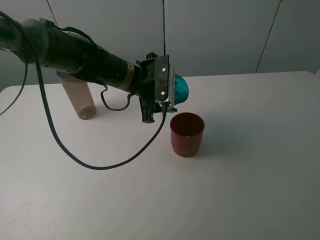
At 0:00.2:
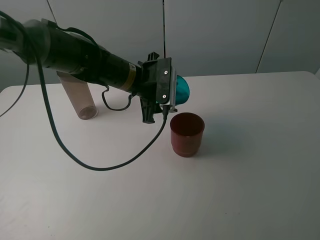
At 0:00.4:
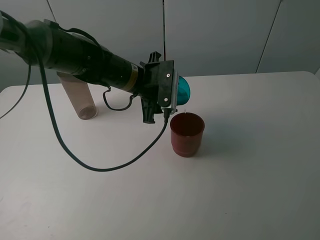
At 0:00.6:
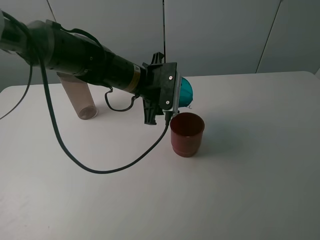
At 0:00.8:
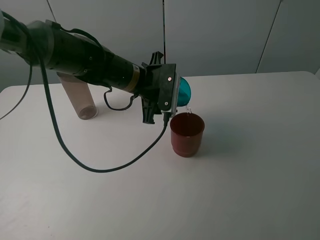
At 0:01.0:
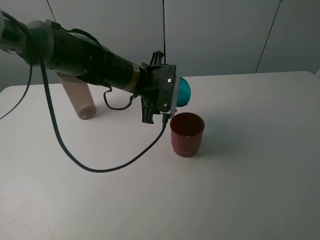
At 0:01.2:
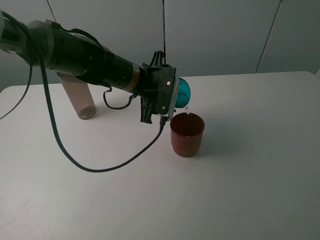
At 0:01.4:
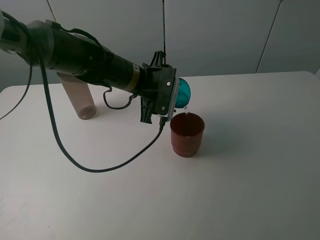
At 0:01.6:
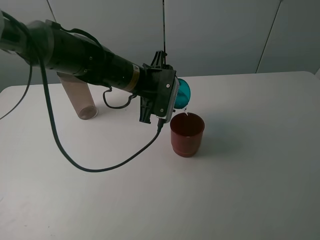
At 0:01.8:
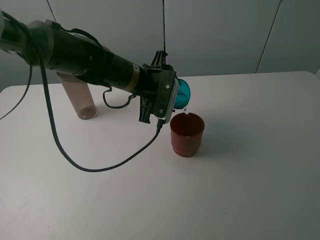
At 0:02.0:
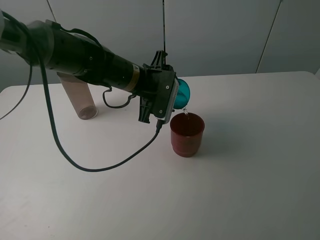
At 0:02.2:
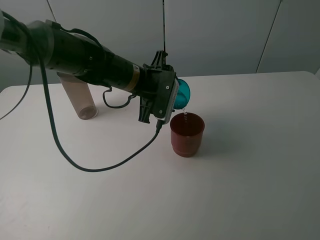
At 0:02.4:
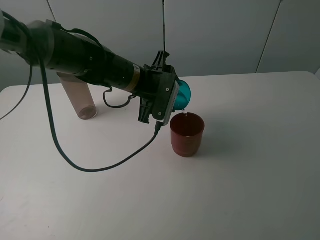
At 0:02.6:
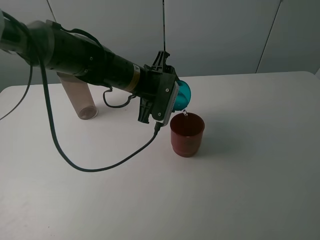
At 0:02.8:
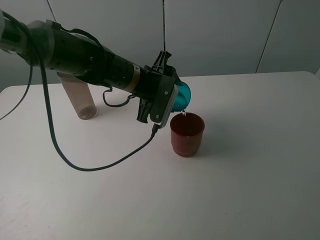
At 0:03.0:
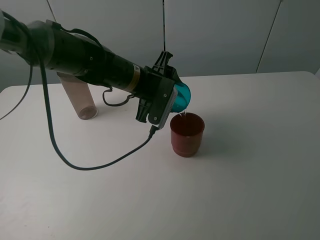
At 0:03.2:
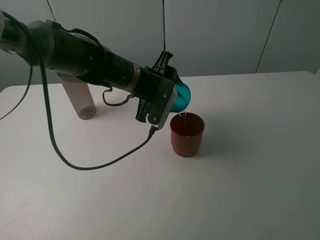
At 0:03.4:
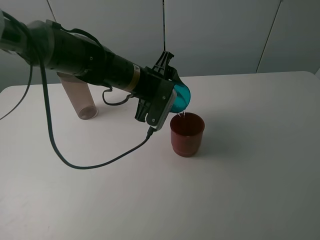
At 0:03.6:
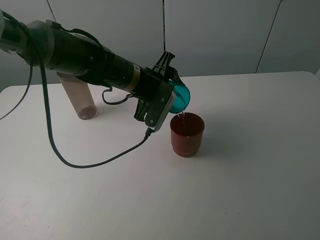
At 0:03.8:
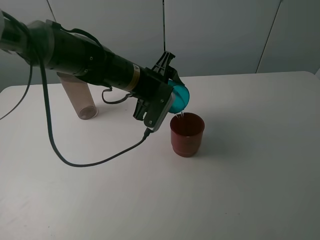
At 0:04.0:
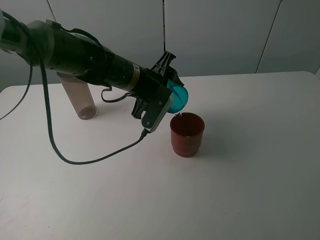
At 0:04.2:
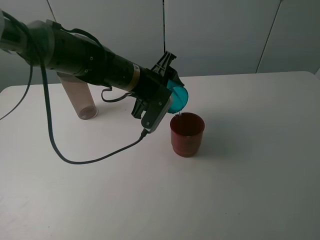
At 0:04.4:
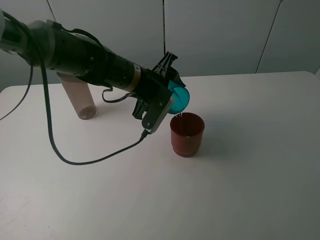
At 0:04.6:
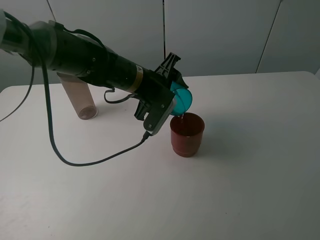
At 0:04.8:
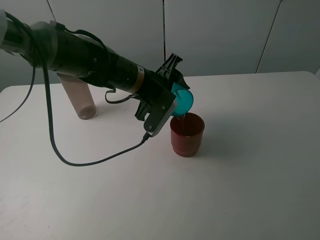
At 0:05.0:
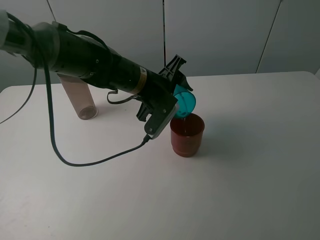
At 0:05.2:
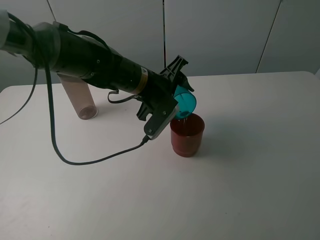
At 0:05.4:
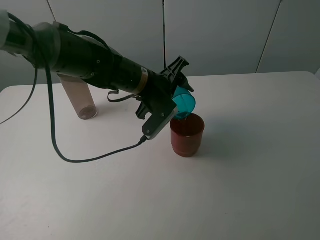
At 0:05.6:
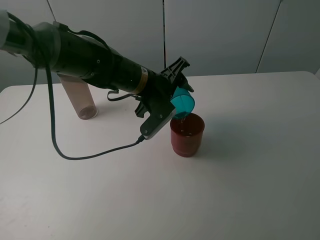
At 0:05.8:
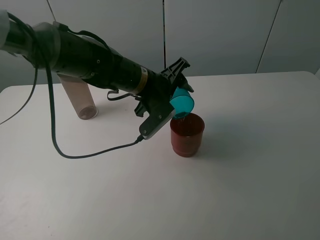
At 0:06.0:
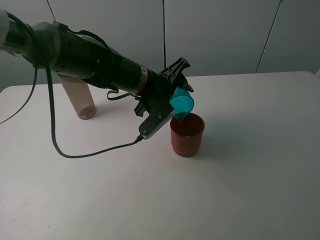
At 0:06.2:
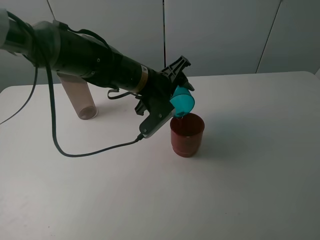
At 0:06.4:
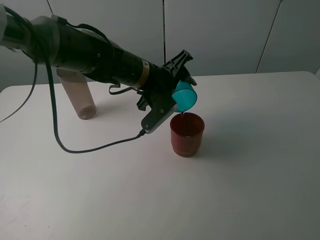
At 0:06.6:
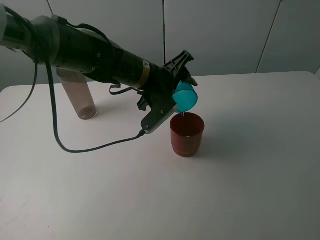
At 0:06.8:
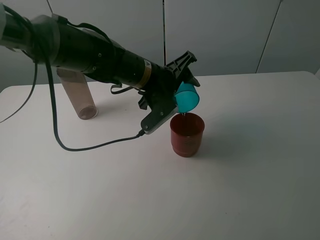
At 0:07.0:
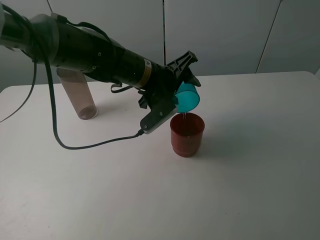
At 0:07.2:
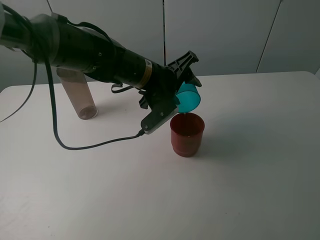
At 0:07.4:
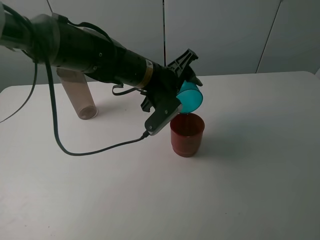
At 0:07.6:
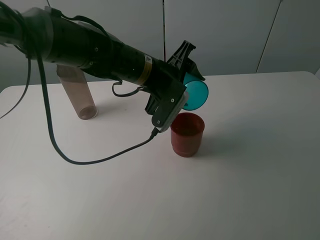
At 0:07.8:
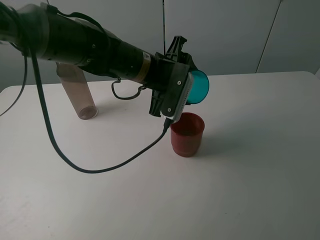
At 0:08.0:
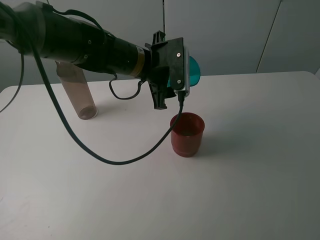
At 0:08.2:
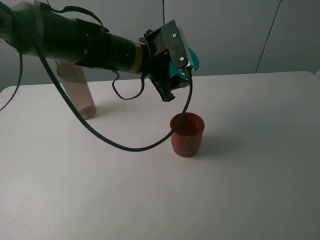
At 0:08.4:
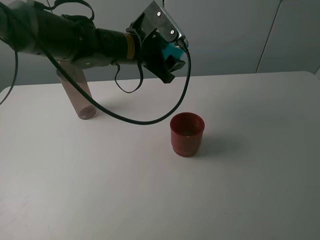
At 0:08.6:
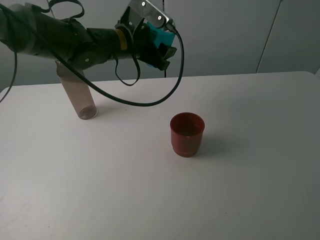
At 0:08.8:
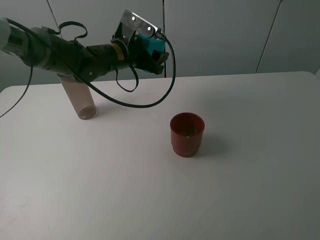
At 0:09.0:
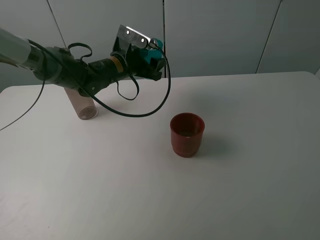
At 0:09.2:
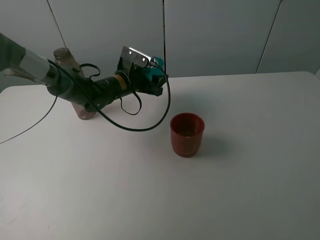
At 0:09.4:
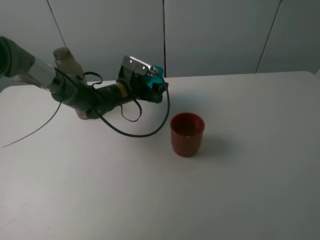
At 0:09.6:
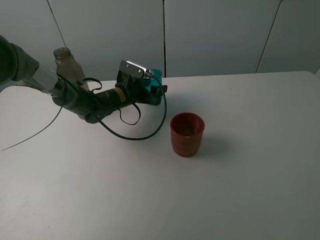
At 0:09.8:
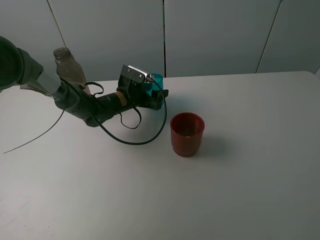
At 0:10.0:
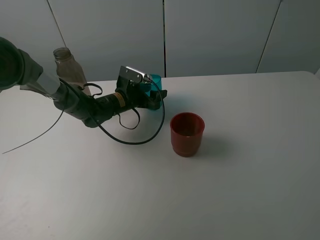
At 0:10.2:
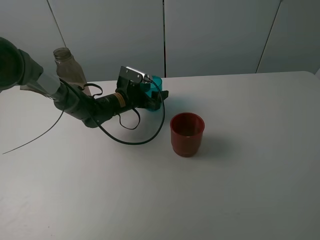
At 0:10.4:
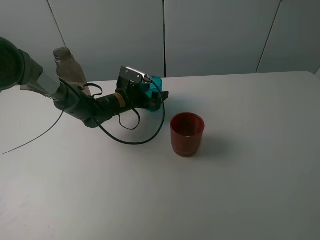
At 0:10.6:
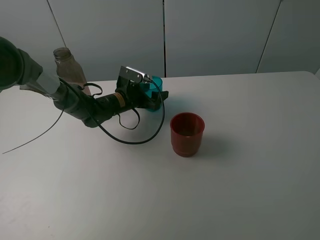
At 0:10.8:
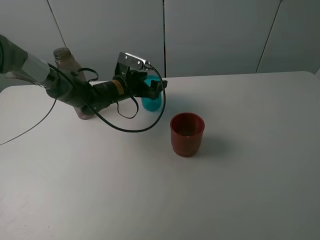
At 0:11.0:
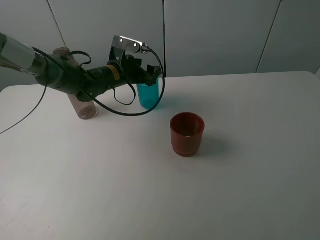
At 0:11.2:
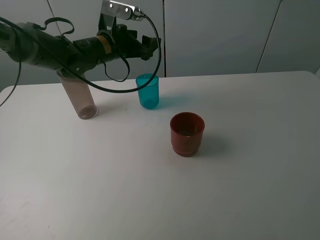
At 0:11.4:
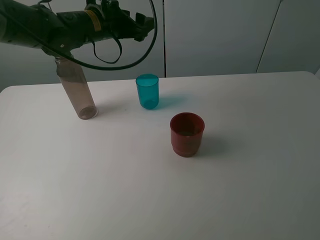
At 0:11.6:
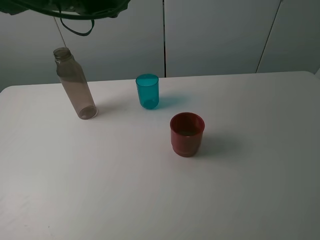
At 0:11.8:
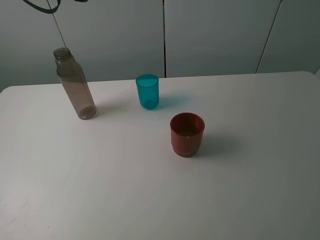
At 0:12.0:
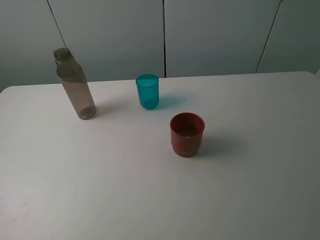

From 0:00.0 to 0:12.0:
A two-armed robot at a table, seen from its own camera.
Task of the whole recording: pick up the bottle and pour water into the cup, then pick up the cup containing water and pour it into another cup.
From 0:00.0 to 0:01.6: The grippers move only a little.
From 0:01.6 to 0:03.0: The grippers make only small movements.
From 0:03.0 to 0:04.4: The grippers make only small movements.
From 0:04.4 to 0:06.0: There are only small adjustments of the grippers.
From 0:06.0 to 0:07.6: There are only small adjustments of the grippers.
From 0:07.6 to 0:09.0: The left gripper travels forward, to the left and downward by about 15 cm.
From 0:09.0 to 0:10.4: The left gripper goes some 10 cm downward, and opens its fingers.
From 0:10.4 to 0:12.0: The left gripper is displaced upward and backward by approximately 40 cm.
